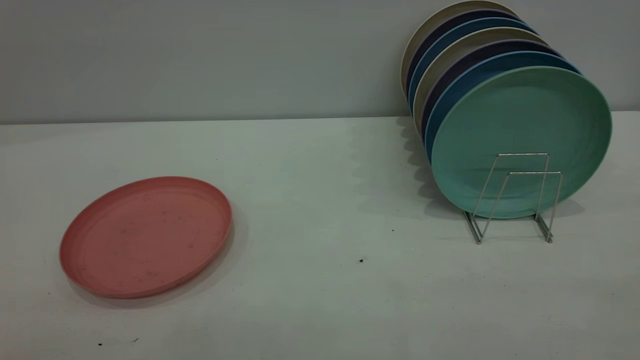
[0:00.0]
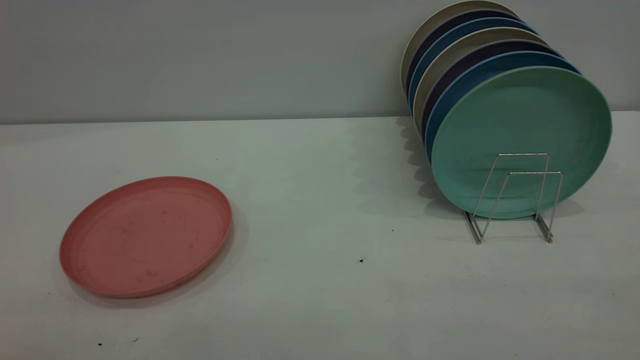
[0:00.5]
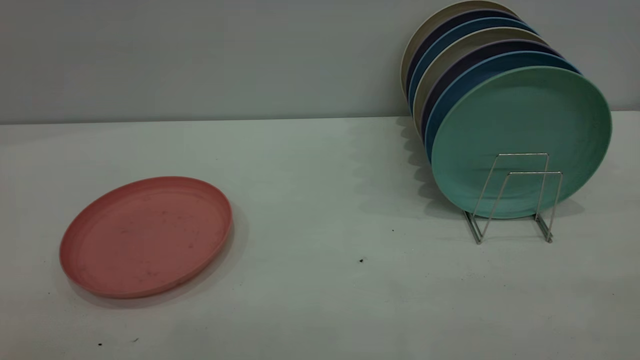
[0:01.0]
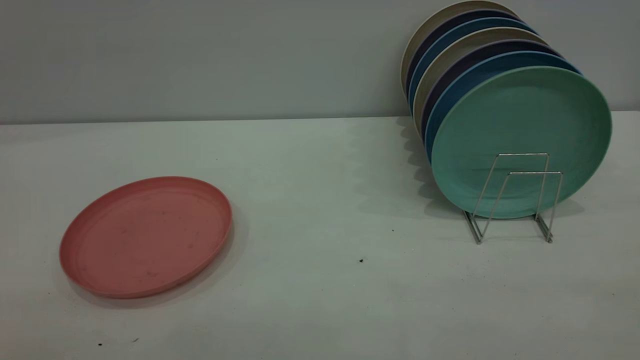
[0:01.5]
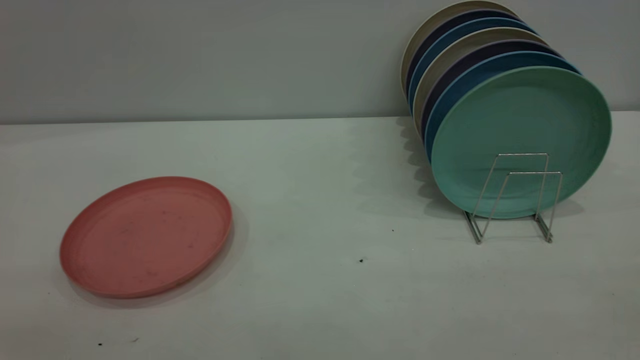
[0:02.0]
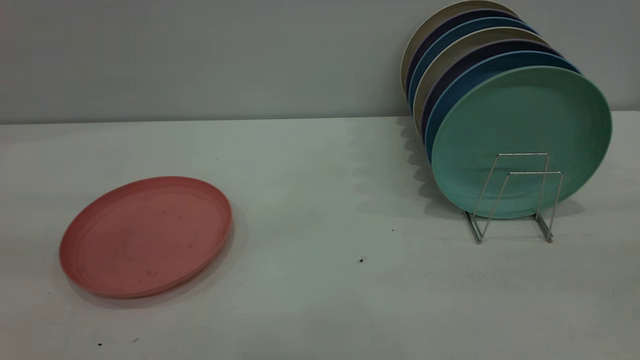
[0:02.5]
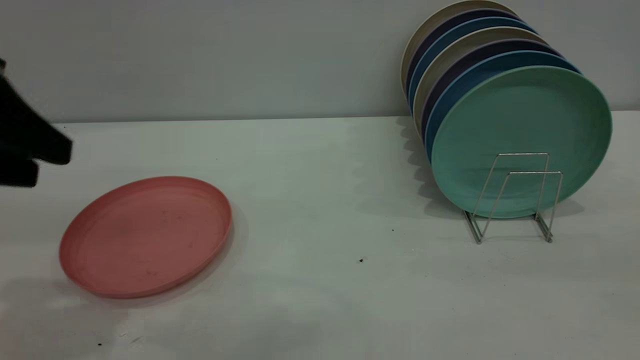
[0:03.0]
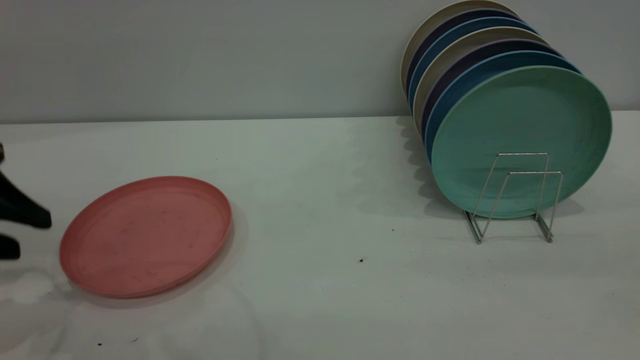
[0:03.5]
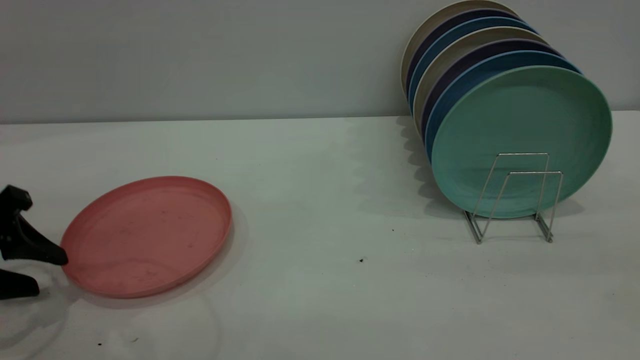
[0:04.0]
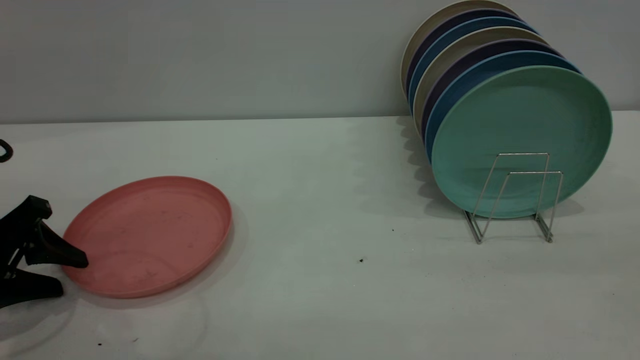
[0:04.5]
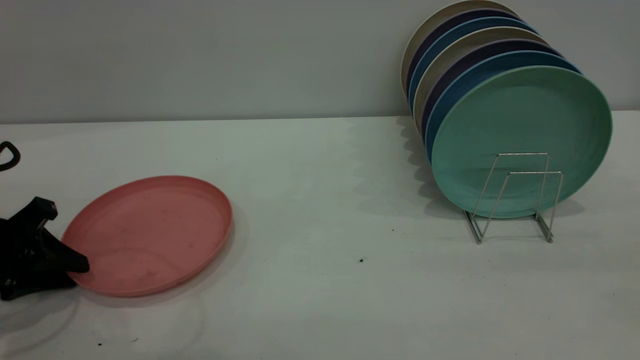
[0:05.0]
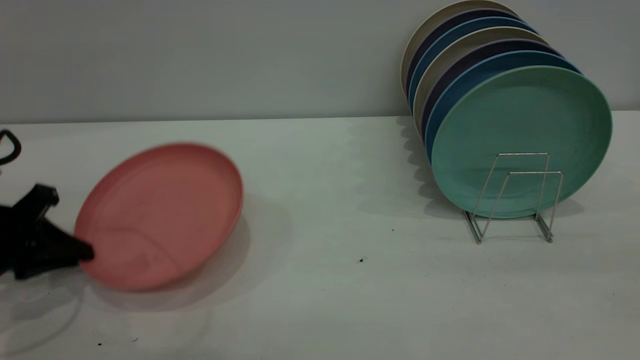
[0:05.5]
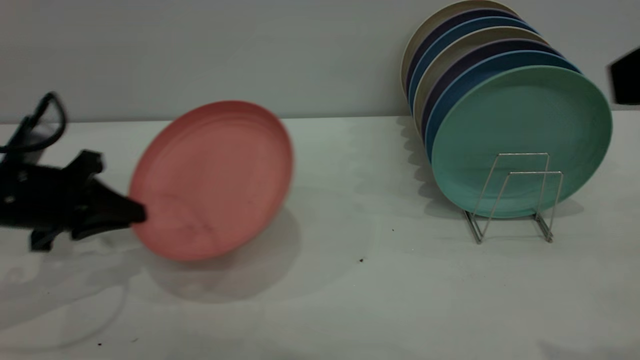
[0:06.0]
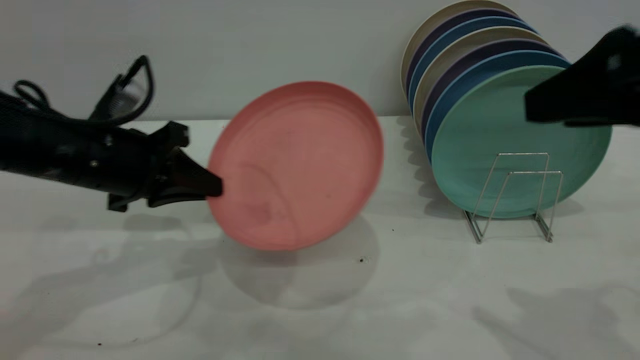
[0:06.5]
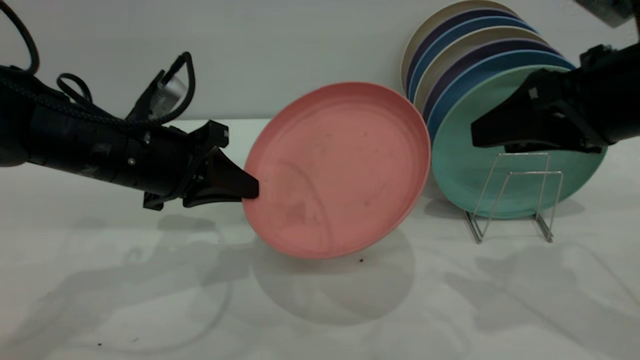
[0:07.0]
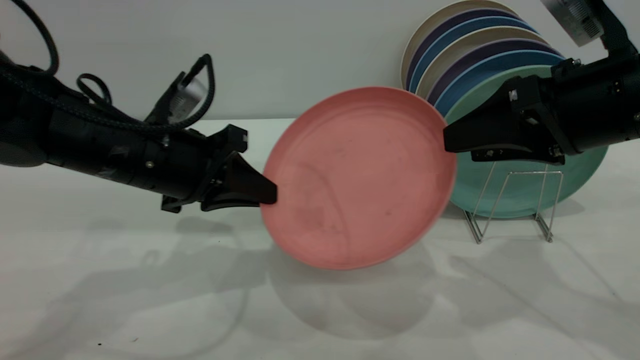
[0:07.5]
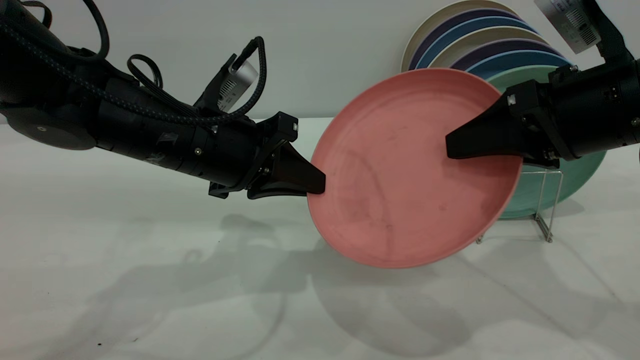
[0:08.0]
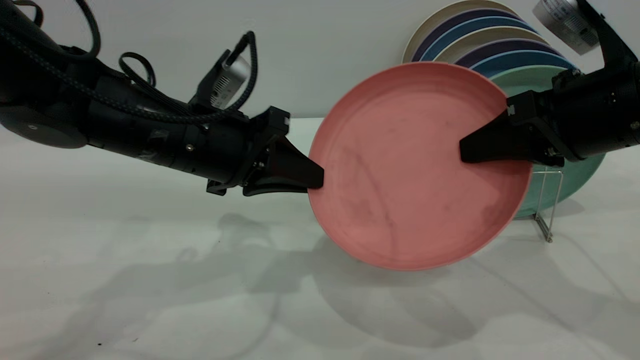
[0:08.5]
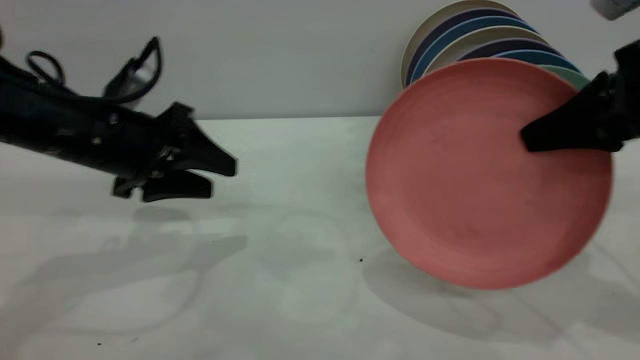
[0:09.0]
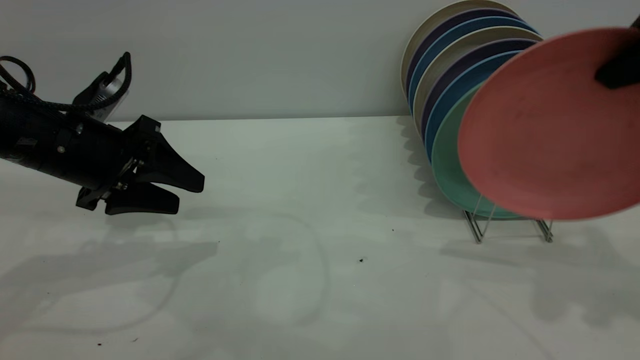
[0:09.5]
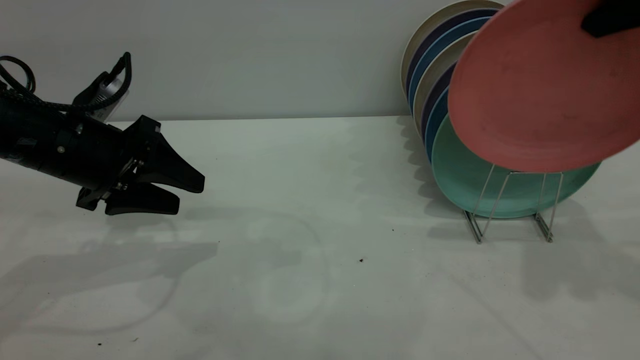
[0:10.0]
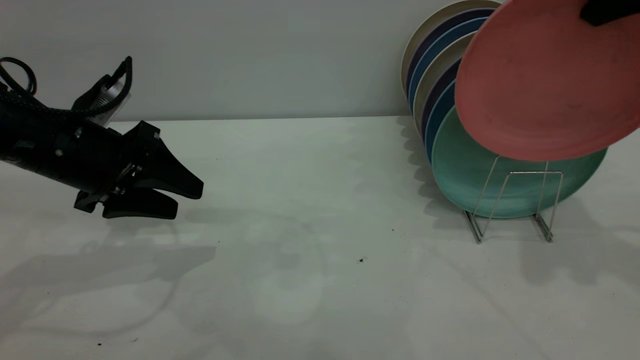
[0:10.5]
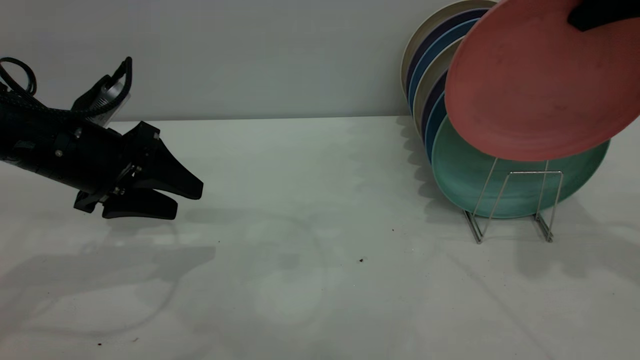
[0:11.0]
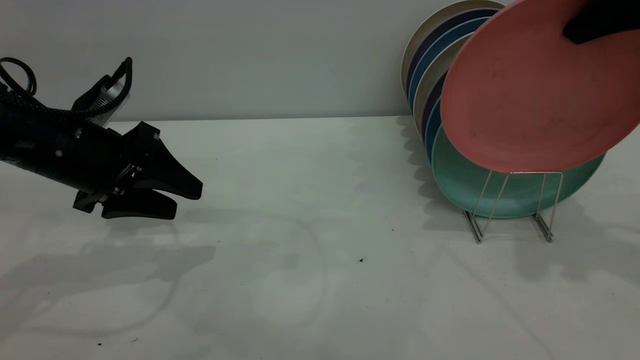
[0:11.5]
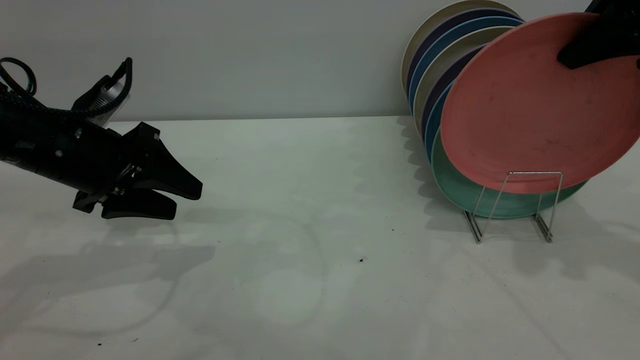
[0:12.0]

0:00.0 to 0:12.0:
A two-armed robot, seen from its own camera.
Task of the whole recording: the left gripper grasp the pink plate, the left gripper pass the pink plate to the right gripper, and the right gripper place the pink plate on the plate rack.
Step, 0:00.0 to 0:05.0: Pick up the plate with the left gripper.
Step, 0:05.5 to 0:08.5: Pass the plate from the left gripper to the right gripper.
0:02.0 to 0:04.0: The left gripper heads forward and downward, covering about 35 cm.
0:04.0 to 0:06.0: The left gripper goes approximately 10 cm forward and to the right, and closes up. The right gripper is displaced forward by roughly 5 cm.
0:06.0 to 0:08.0: The left gripper shifts about 15 cm to the right; the right gripper heads forward and downward, covering some 20 cm, and closes.
0:08.0 to 0:10.0: The left gripper heads to the left, covering roughly 15 cm, and opens. The right gripper is displaced upward and to the right by about 15 cm, and closes its fingers.
0:10.0 to 0:12.0: The grippers move only a little.

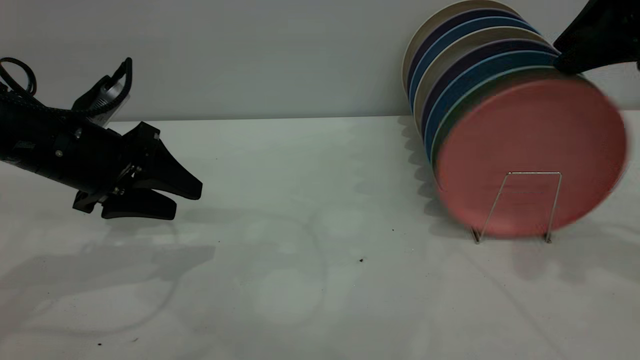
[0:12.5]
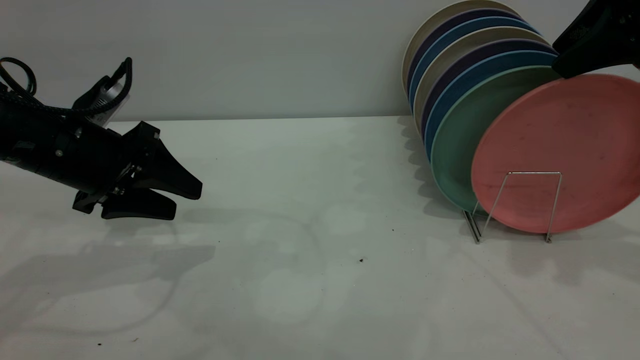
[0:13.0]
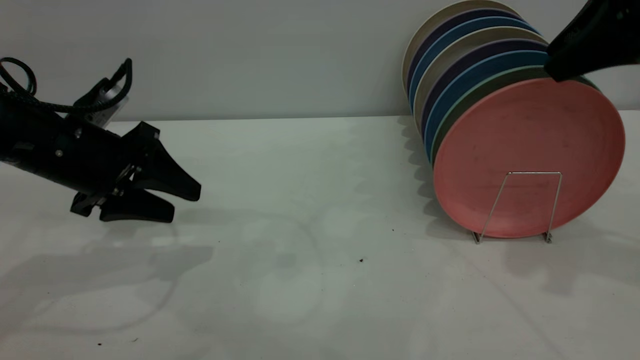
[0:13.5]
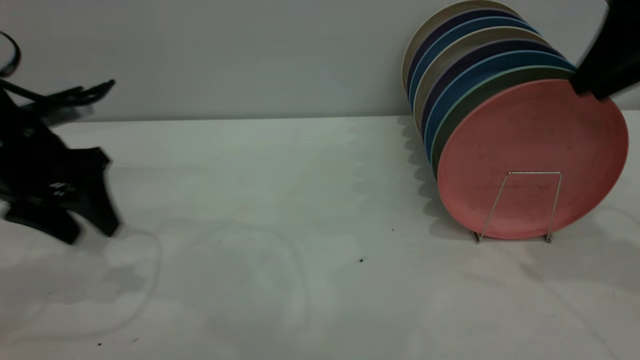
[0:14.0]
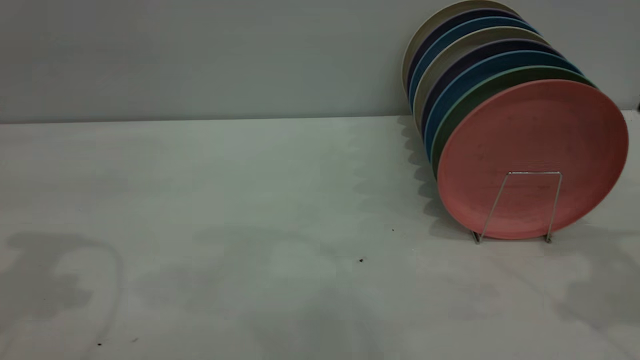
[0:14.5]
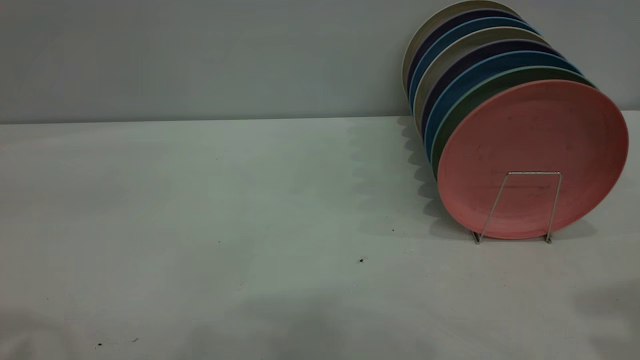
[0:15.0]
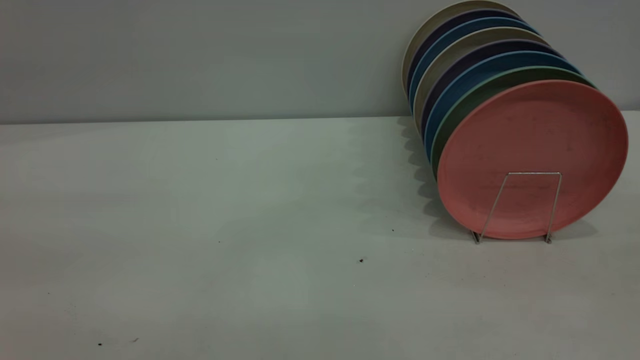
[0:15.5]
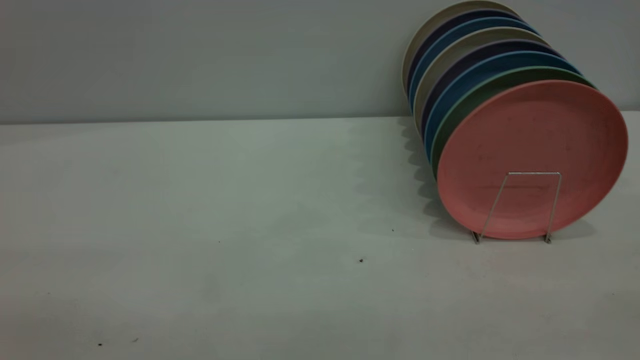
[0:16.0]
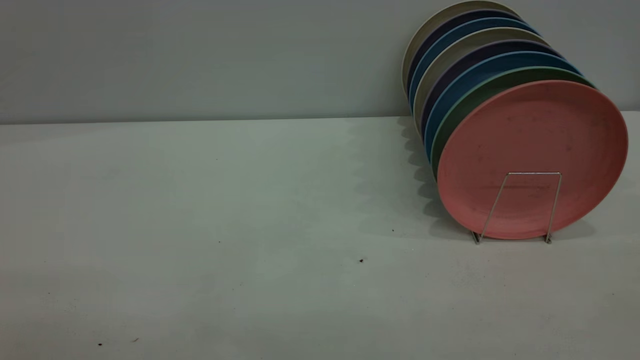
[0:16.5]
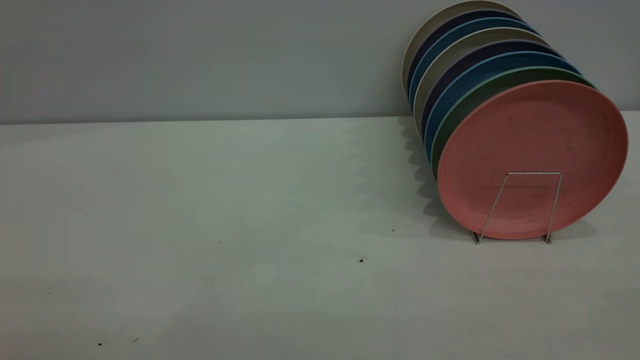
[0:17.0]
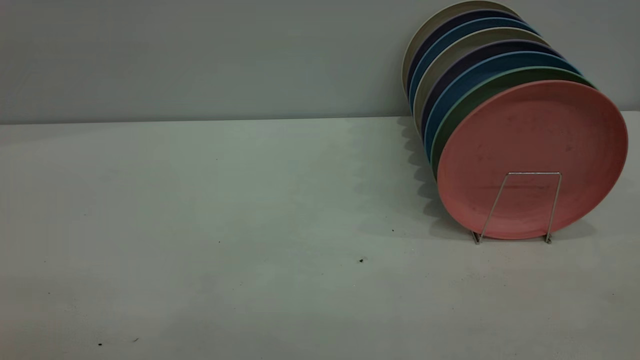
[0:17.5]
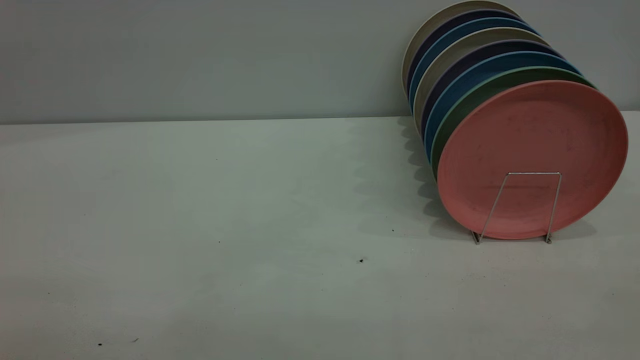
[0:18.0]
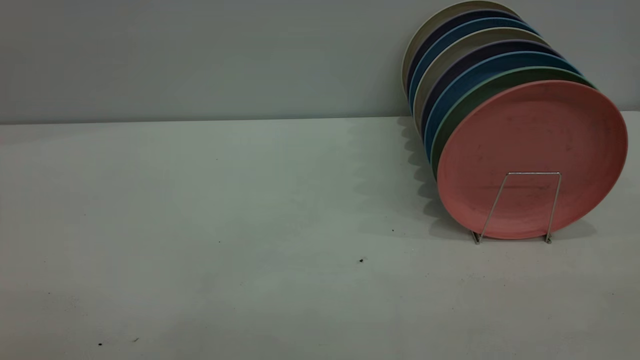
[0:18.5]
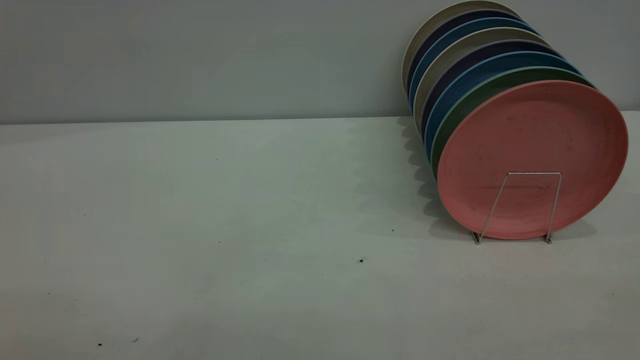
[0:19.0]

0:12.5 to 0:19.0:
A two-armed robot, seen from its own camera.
Task of the whole recording: the left gripper grasp the pink plate, the left gripper pass the pink plate to the right gripper, and the right gripper place the pink plate on the plate rack.
0:12.5 to 0:14.5: The left gripper heads upward, covering roughly 20 cm, while the right gripper is displaced backward by some 5 cm, and opens up.

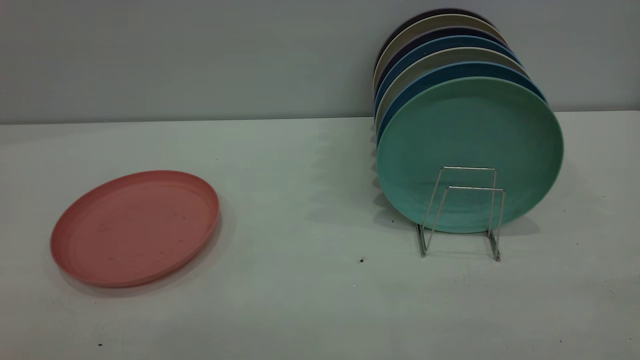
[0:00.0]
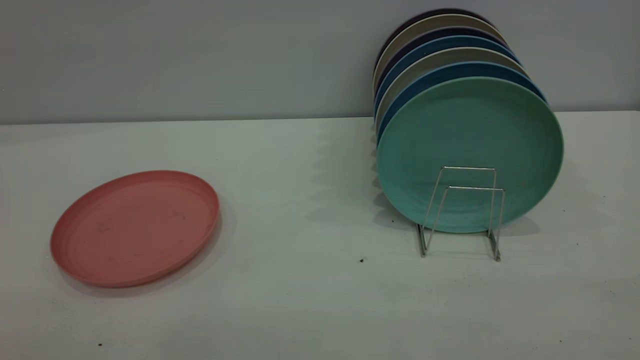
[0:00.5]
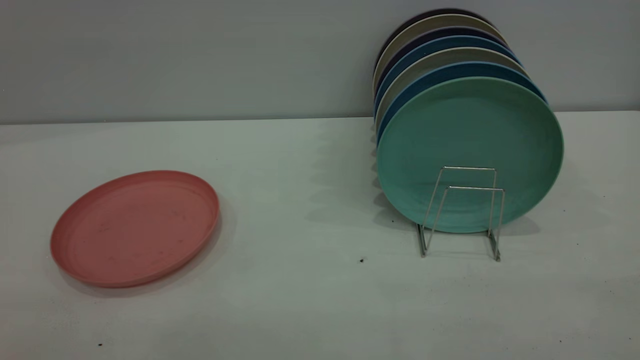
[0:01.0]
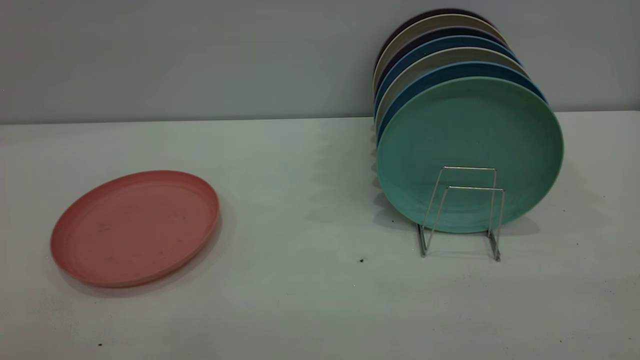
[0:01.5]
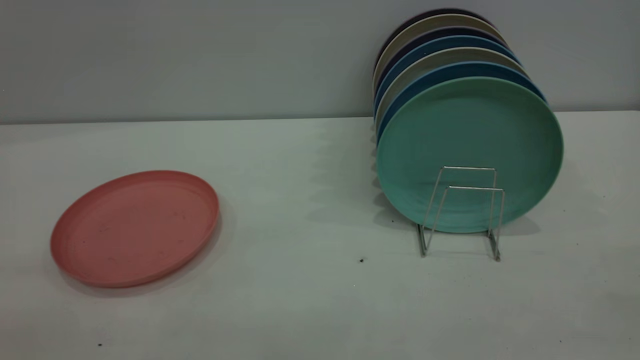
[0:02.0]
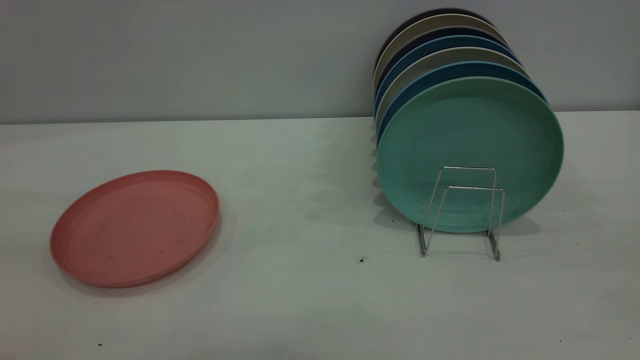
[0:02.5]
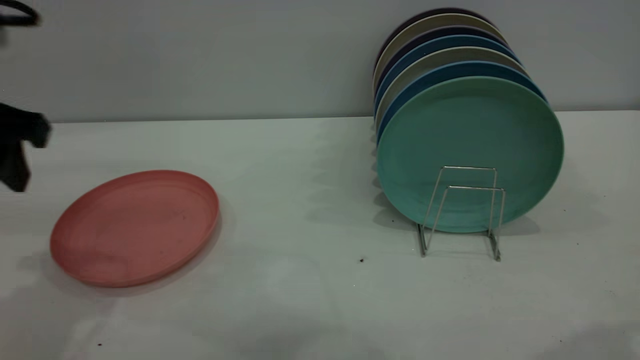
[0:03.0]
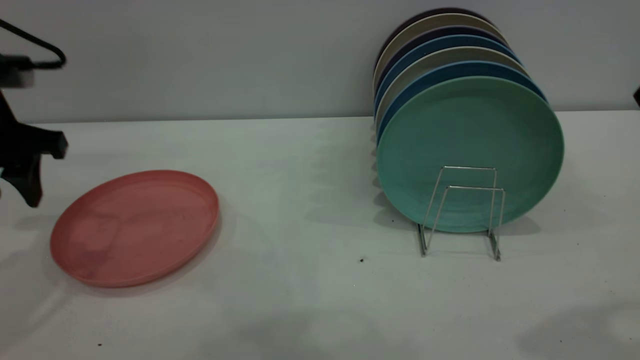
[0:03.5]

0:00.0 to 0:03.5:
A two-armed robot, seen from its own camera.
Task of the whole recording: put the plate on the plate rack.
0:02.0 to 0:03.5: The left gripper moves forward and downward, about 35 cm.
